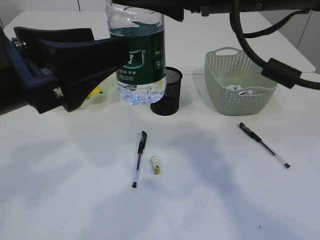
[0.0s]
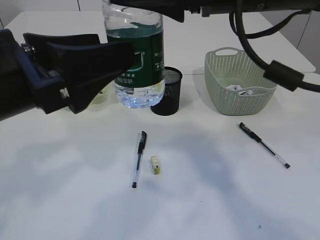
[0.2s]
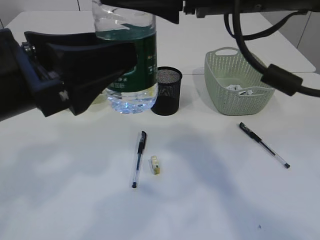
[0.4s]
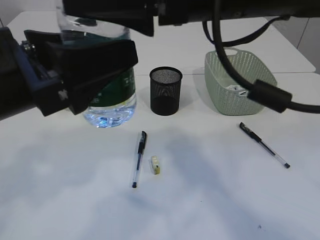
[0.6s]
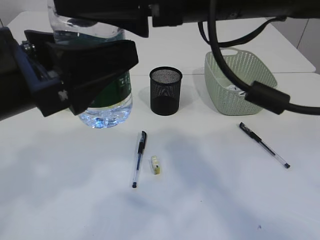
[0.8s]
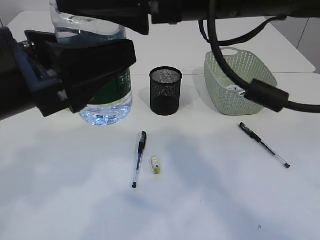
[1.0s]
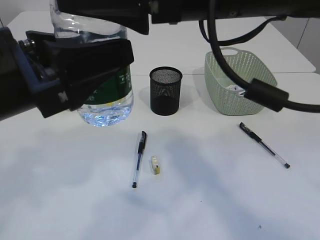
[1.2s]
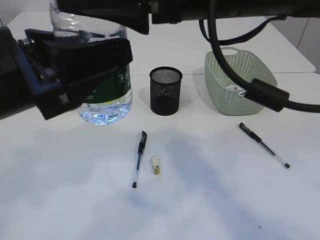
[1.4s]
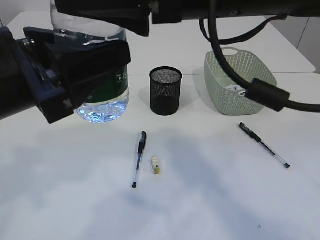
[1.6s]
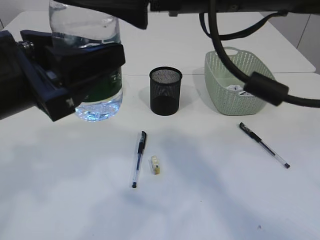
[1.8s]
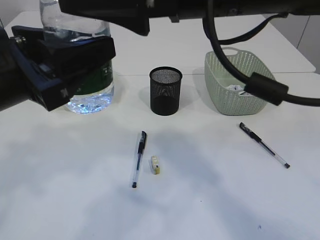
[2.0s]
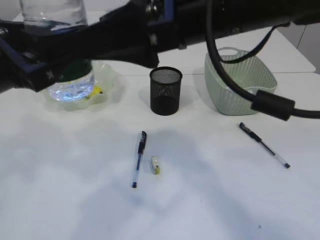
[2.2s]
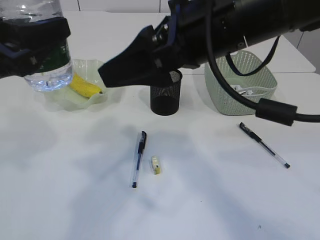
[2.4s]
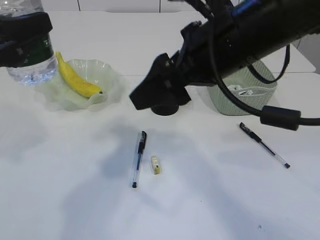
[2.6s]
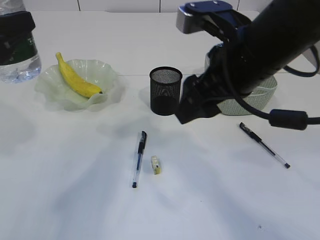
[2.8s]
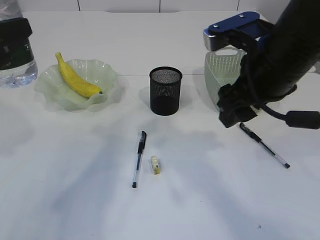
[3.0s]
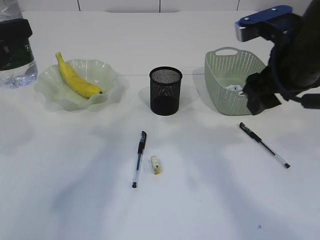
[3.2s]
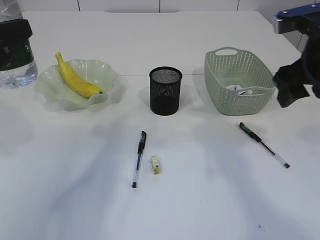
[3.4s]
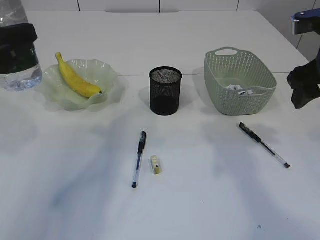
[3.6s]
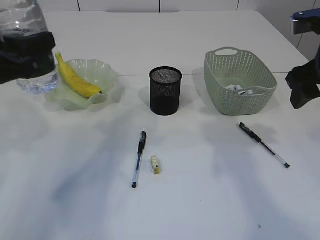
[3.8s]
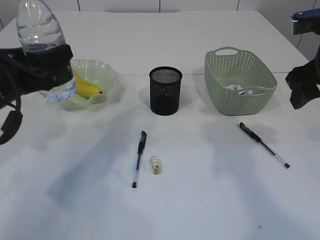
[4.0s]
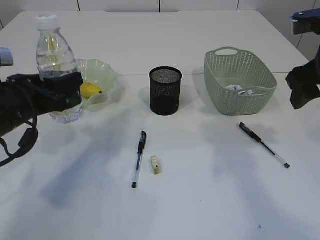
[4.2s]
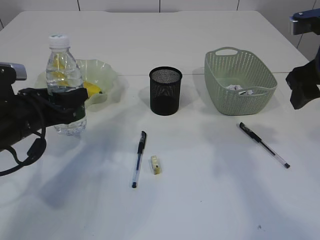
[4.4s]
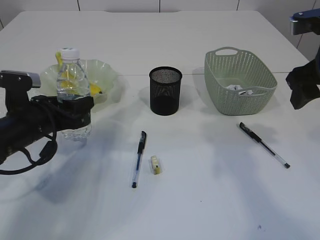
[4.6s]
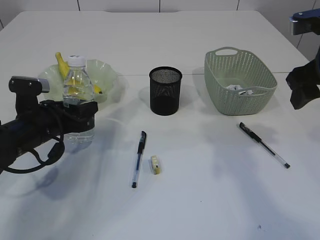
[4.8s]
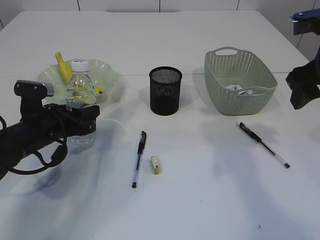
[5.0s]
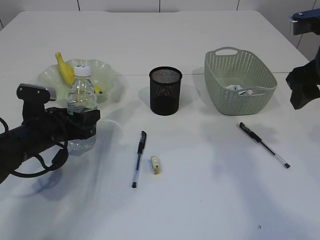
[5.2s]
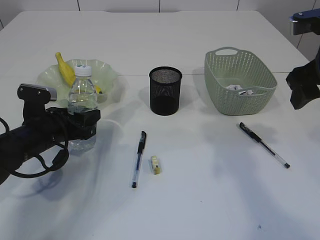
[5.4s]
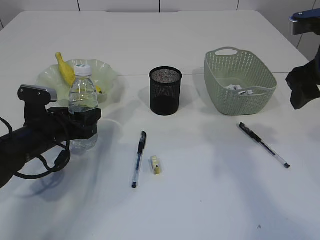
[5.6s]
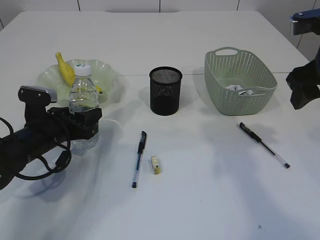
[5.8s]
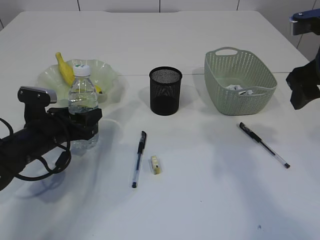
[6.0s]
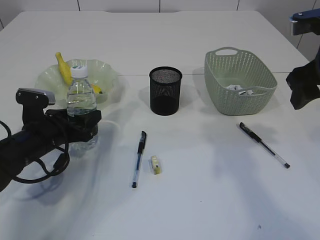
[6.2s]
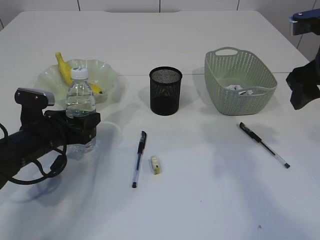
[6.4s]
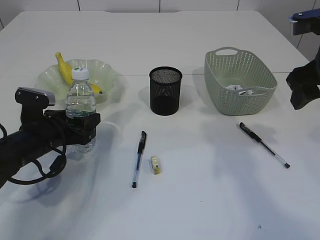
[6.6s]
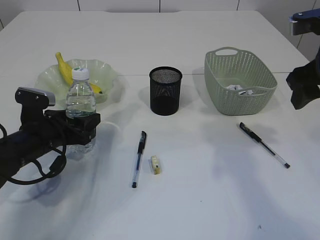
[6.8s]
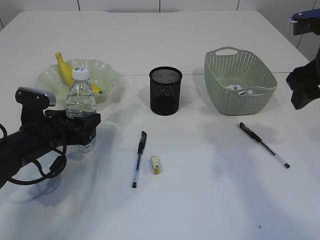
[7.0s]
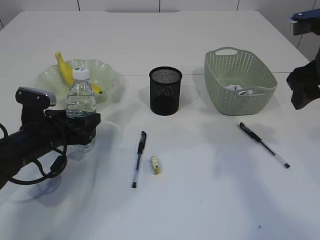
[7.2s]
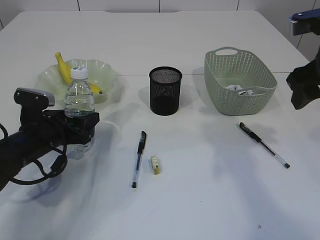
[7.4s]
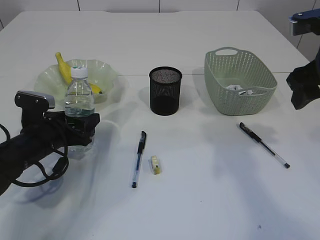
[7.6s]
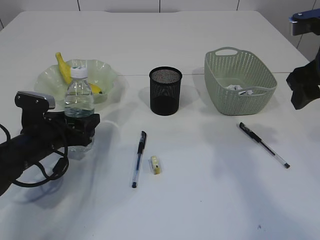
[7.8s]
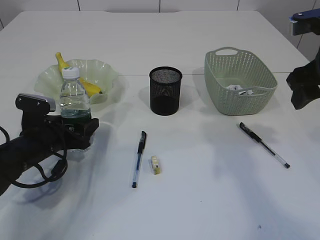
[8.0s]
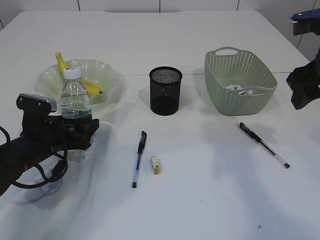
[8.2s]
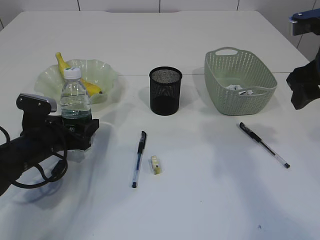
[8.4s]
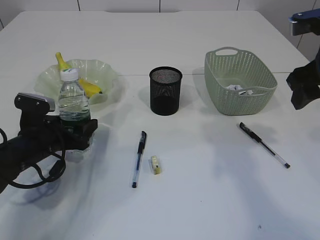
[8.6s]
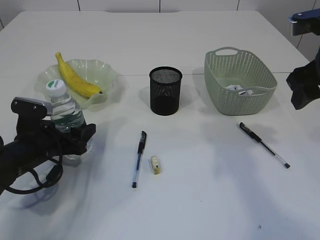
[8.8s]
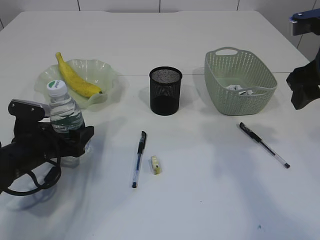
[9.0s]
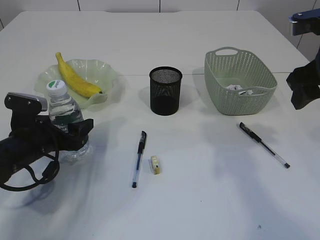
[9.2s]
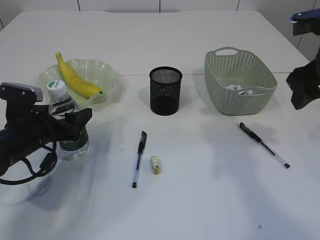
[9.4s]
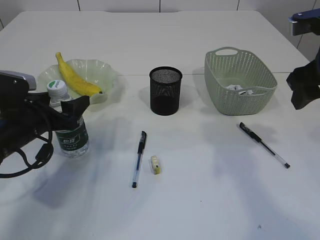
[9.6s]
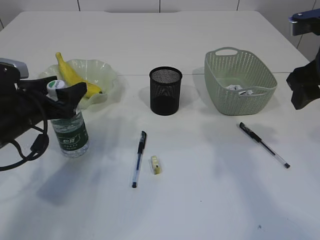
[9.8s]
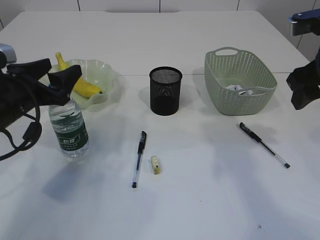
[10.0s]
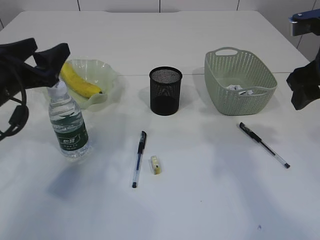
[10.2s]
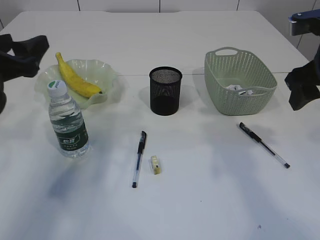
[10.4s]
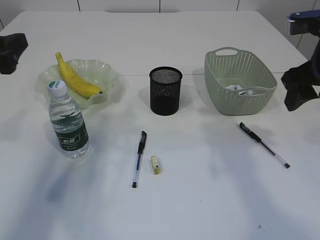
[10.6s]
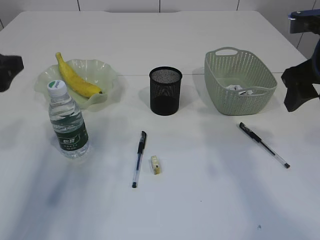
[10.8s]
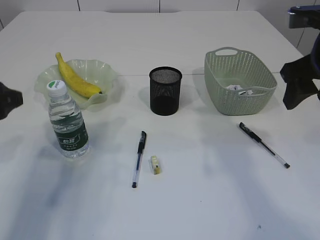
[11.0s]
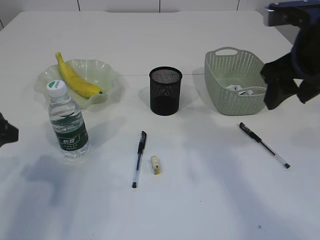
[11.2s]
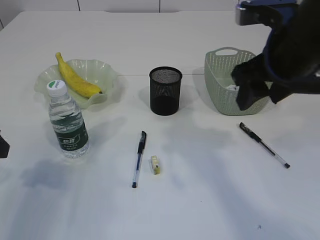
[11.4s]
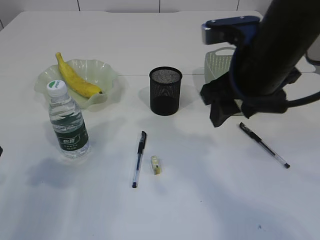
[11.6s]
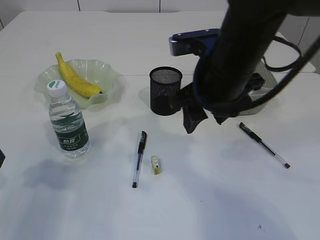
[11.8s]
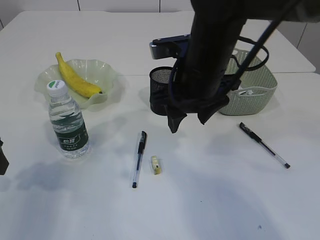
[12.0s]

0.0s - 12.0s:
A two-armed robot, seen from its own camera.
Step, 0.0s - 2.0s: transfer the bottle to the left arm.
Step, 2.2s - 10.0s: Place the bottle.
0.0s - 1.6s: The left gripper closes up.
1.6s - 3.0s: The right gripper goes approximately 10 cm downward and to the right, while the left gripper goes roughly 10 cm to the left and forward.
3.0s - 4.4s: The right gripper goes roughly 10 cm to the right; the left gripper goes approximately 15 cm downward and forward.
4.4s - 6.0s: The left gripper is displaced downward by roughly 10 cm.
6.0s - 7.6s: The two grippers keep their place.
7.6s - 9.0s: The grippers move only a little.
9.0s - 10.4s: The left gripper goes some 15 cm upward.
10.4s - 12.0s: The left gripper shifts roughly 5 cm backward, while the right gripper shifts some 20 cm to the left.

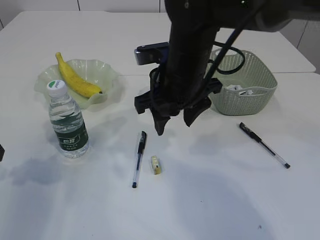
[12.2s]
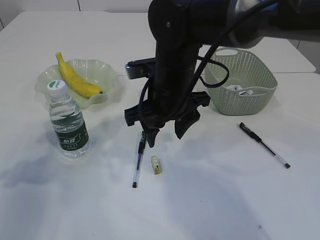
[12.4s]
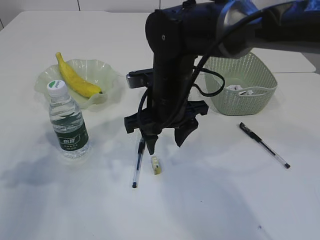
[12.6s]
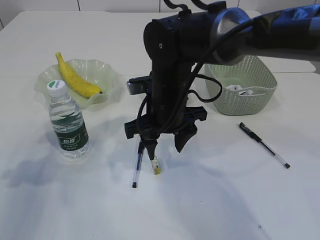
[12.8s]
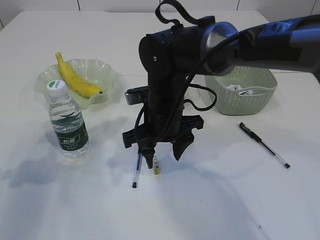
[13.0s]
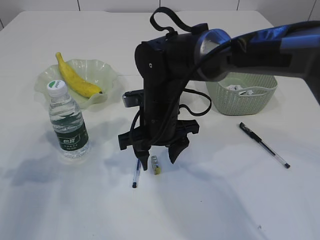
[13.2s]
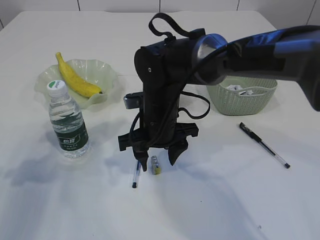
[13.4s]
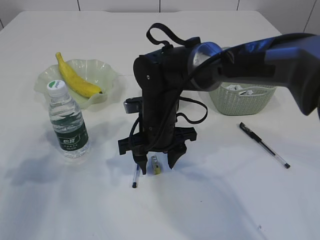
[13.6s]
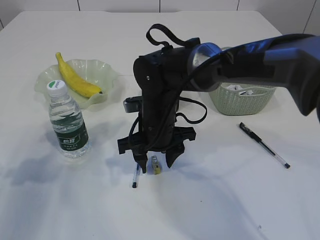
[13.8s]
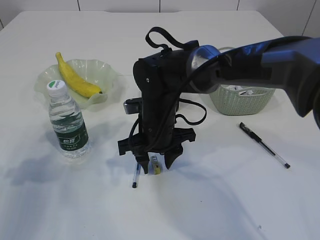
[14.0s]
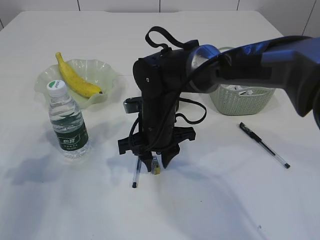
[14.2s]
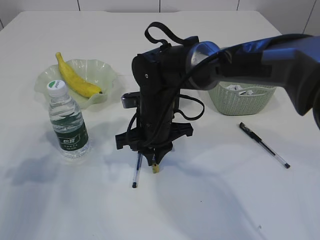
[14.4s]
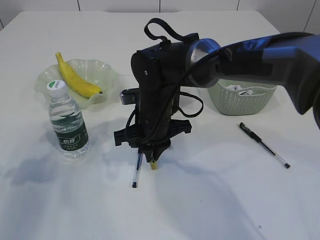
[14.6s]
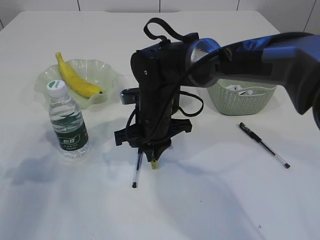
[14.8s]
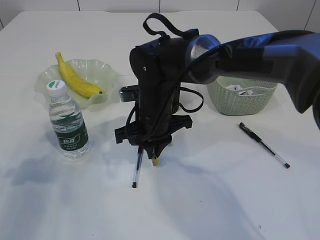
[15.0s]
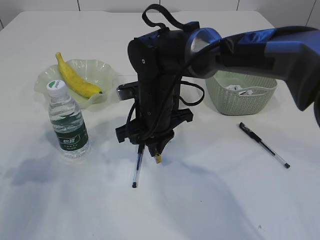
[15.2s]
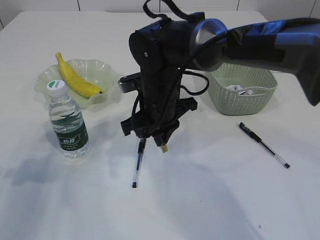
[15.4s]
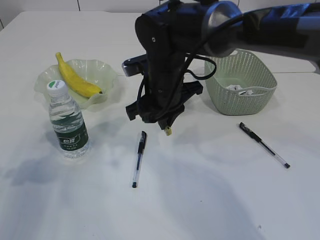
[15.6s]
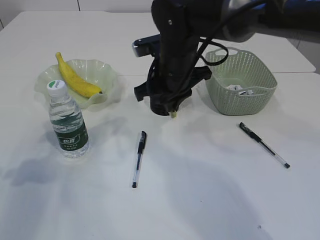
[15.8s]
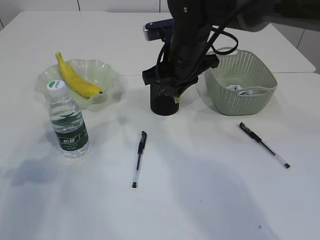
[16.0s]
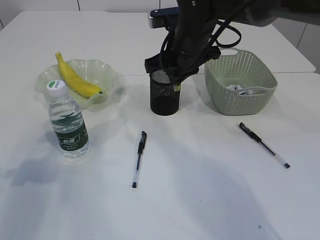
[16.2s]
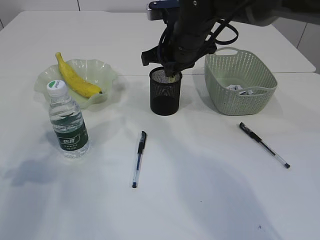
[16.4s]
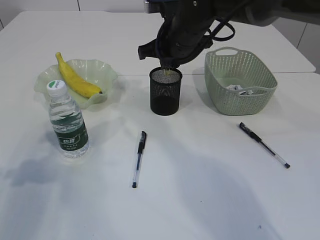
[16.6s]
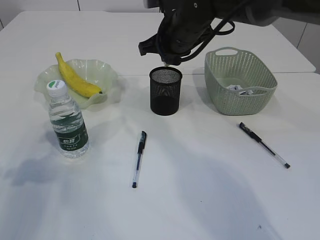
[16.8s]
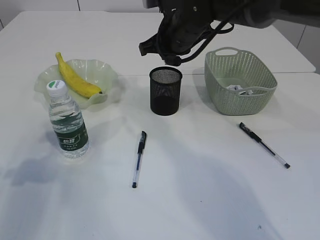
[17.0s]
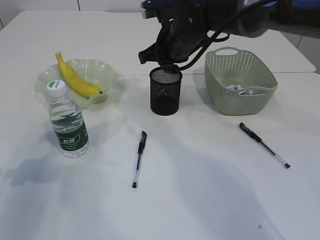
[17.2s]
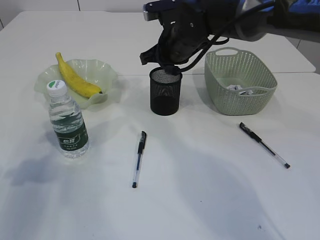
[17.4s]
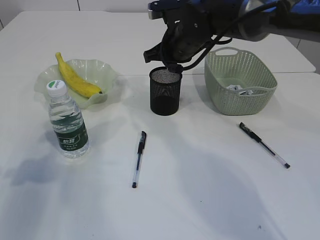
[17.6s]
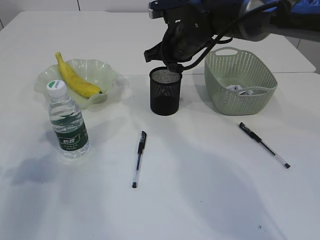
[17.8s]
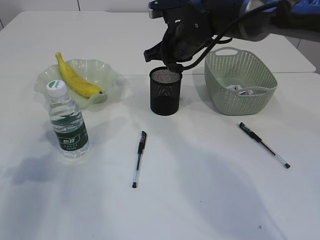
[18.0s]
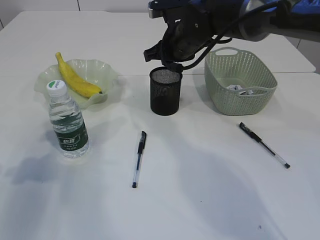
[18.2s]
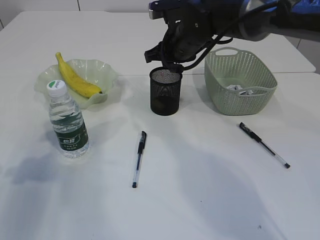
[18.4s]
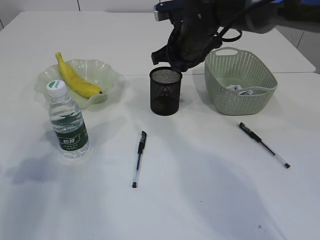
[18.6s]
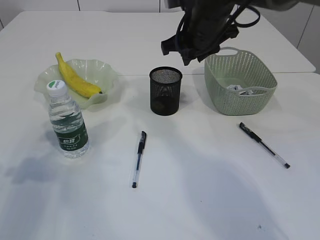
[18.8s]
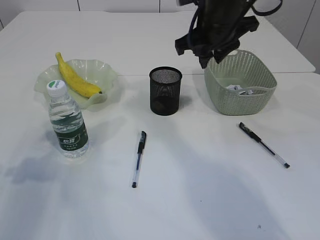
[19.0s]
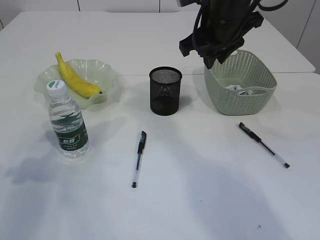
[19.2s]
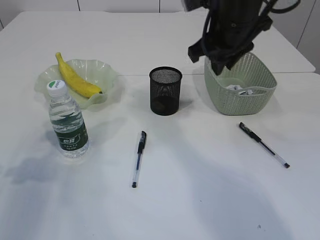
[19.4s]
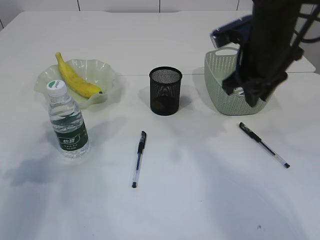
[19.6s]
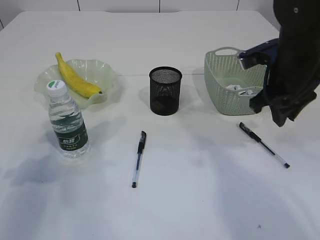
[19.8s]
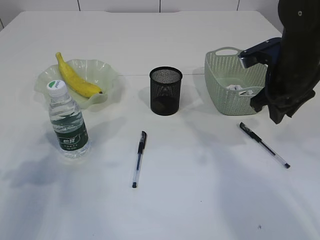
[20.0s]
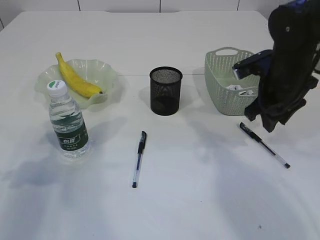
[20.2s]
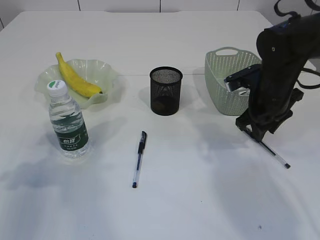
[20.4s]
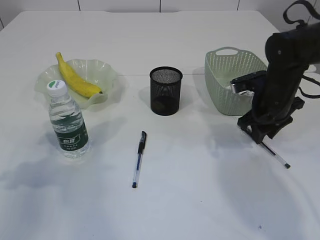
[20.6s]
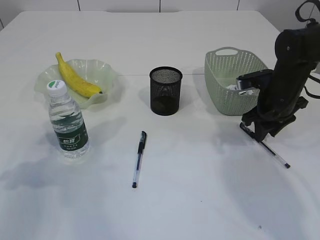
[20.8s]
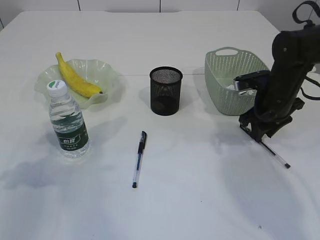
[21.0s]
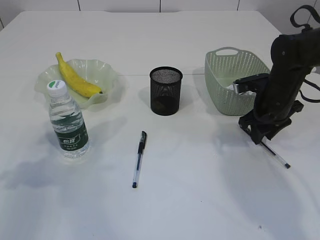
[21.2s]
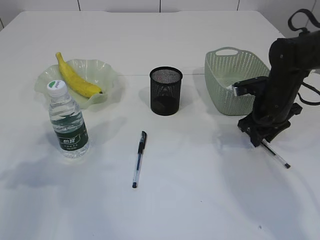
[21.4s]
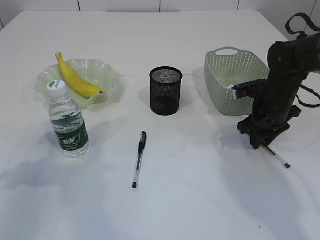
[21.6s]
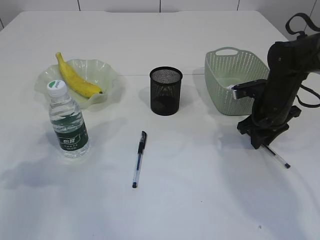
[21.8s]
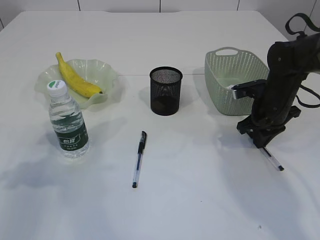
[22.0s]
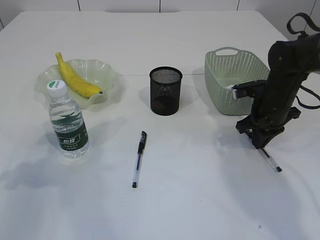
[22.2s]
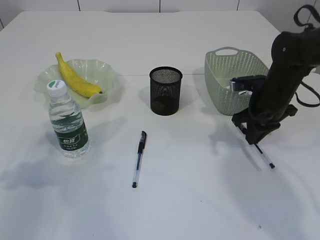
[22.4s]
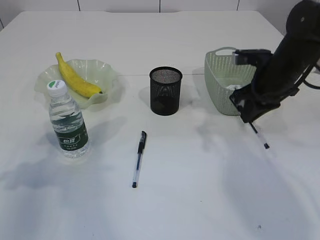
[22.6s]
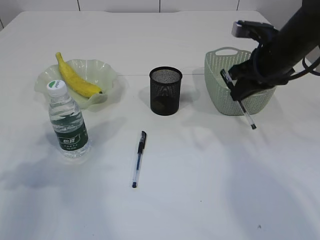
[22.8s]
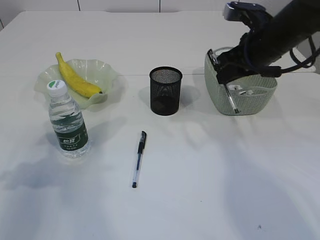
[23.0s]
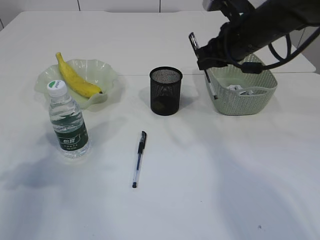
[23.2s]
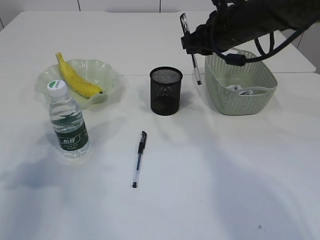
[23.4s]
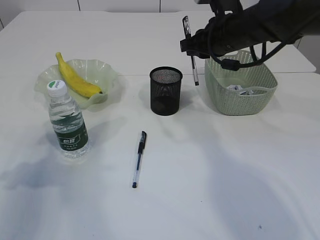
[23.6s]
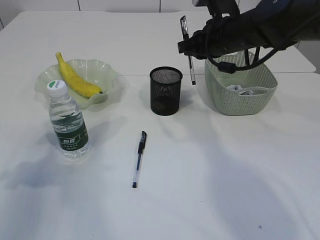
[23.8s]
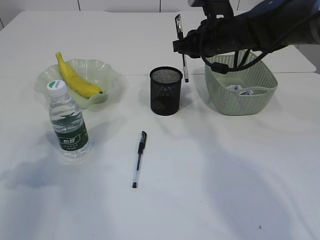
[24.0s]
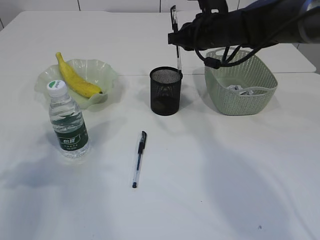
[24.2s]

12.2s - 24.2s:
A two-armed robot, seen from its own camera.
Step, 12.2s - 15.4s: Pick up the eraser.
Step, 15.6s - 18.8s: Place the eraser into the pen holder.
Step, 19.0s - 22.6s: Pick up the pen with right arm.
12.2s - 13.8s: The right gripper travels downward by about 10 cm.
13.8s - 15.2s: The right gripper closes its fingers.
15.2s - 16.6s: The right gripper heads upward, forward and to the right, covering roughly 15 cm.
16.6s - 18.2s: There are only small adjustments of the grippers.
18.2s - 19.8s: The right gripper heads to the right and backward, covering about 20 cm.
19.8s - 21.2s: The right gripper goes some 10 cm downward and forward.
21.2s - 22.6s: The right gripper travels upward by about 5 cm, and closes up.
22.6s - 24.2s: The right gripper heads to the left, forward and upward, covering about 15 cm.
